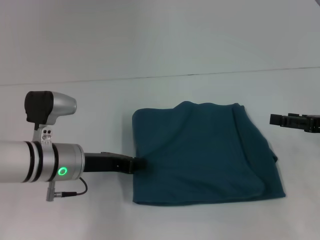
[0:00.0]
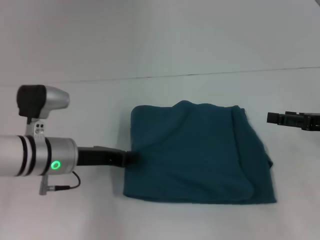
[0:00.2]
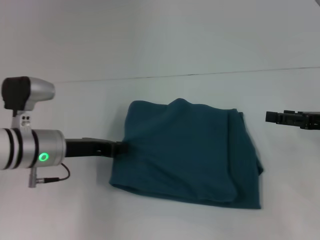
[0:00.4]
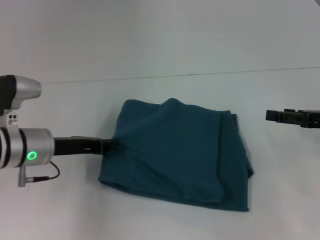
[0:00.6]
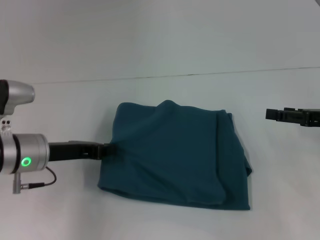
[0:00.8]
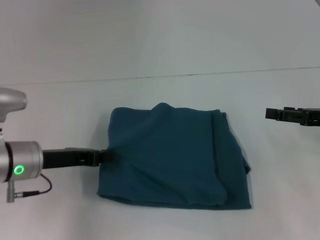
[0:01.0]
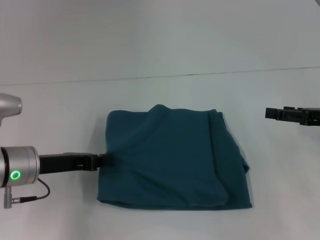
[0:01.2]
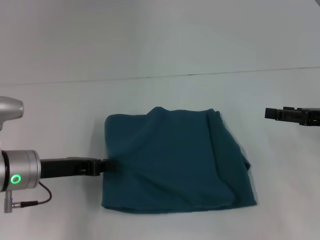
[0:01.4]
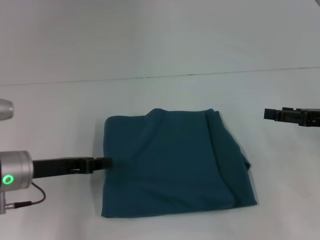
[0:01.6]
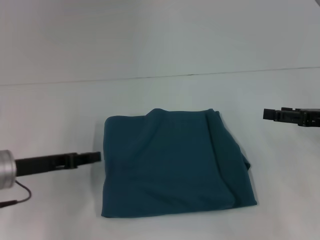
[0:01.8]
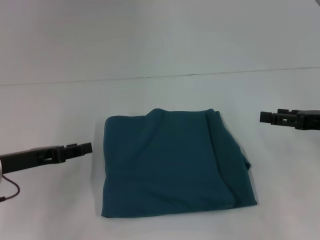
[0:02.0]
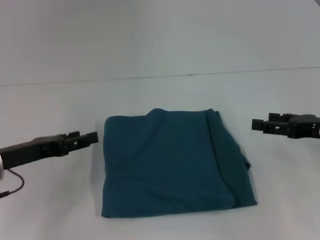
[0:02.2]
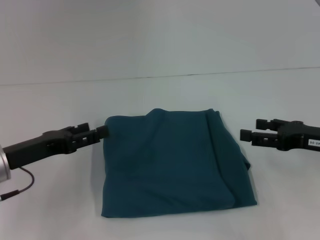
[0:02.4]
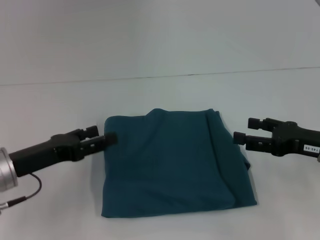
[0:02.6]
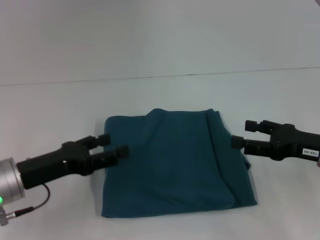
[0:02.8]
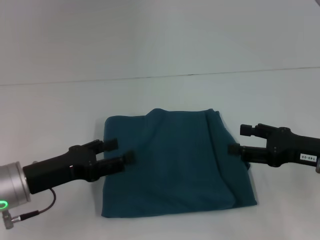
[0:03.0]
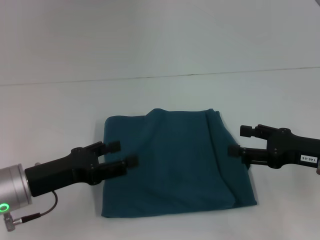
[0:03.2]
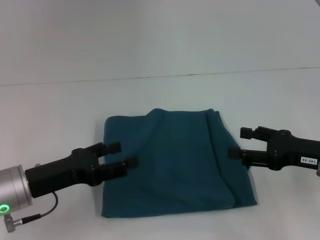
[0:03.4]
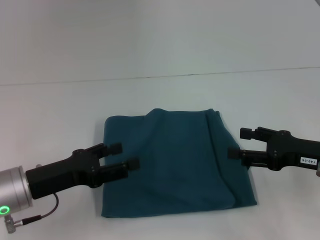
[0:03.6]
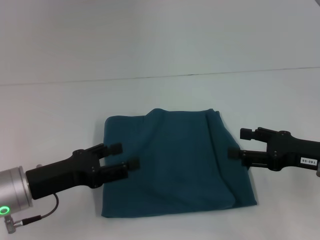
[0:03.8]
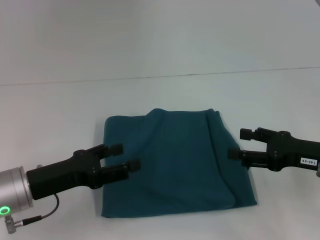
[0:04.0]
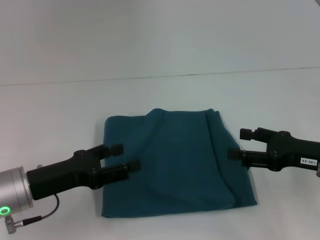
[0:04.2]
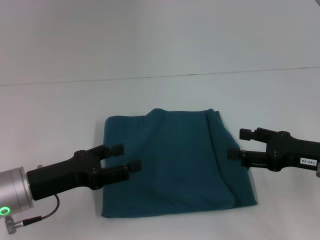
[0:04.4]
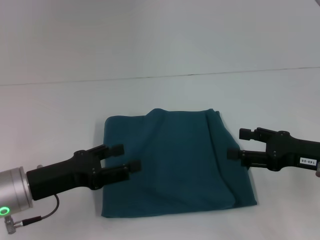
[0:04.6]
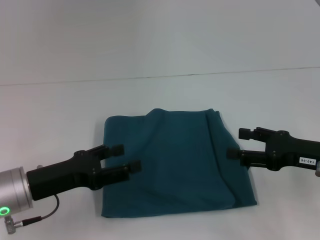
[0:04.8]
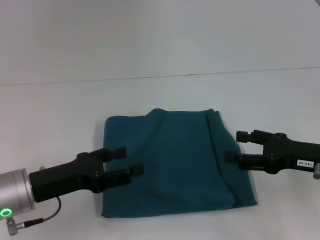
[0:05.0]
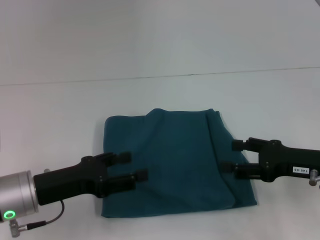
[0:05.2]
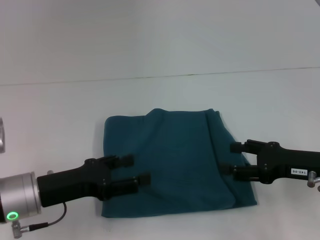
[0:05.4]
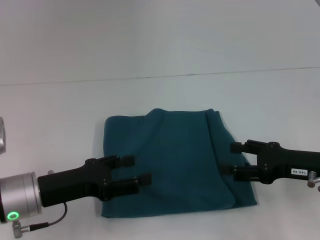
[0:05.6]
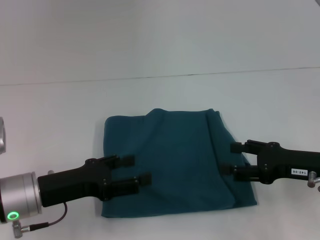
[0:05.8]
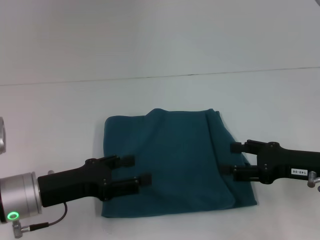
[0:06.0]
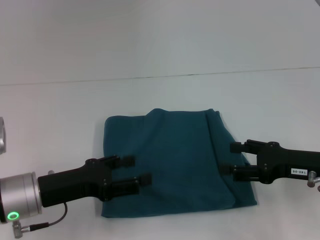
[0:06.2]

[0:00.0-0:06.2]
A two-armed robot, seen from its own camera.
0:00.0 to 0:01.6: The left gripper shifts approximately 5 cm to the left.
0:01.6 to 0:03.2: The left gripper opens; the right gripper goes some 5 cm to the left.
0:03.2 to 0:04.6: Neither gripper changes place.
0:04.6 to 0:06.2: Both grippers stay about where they are.

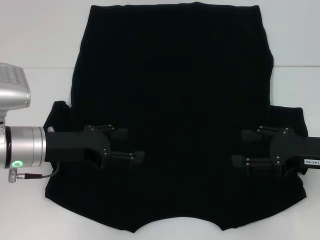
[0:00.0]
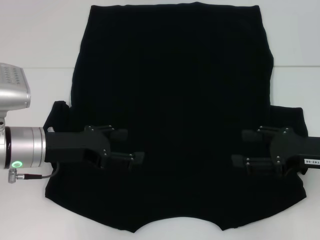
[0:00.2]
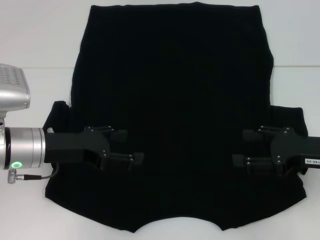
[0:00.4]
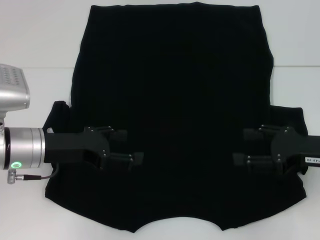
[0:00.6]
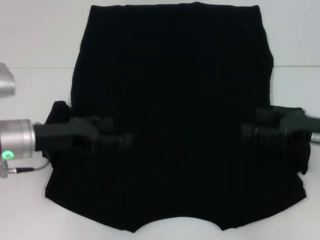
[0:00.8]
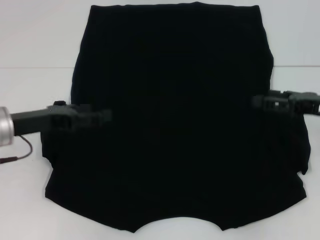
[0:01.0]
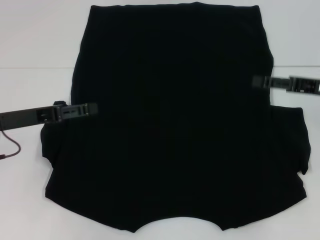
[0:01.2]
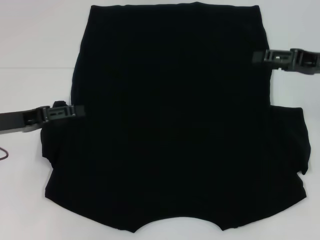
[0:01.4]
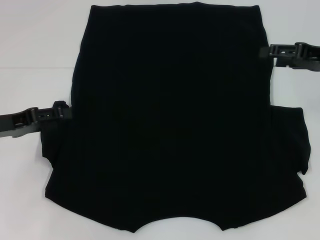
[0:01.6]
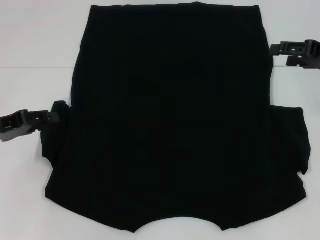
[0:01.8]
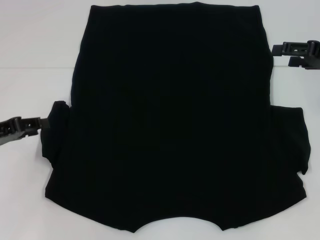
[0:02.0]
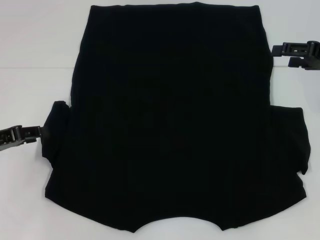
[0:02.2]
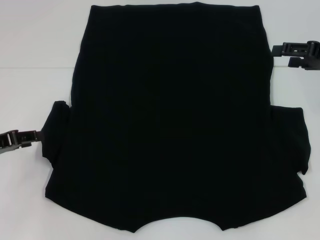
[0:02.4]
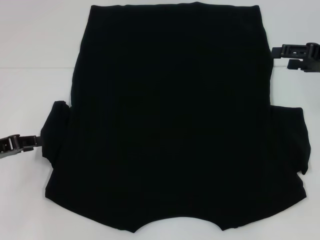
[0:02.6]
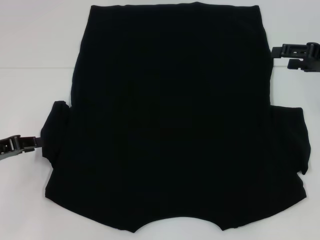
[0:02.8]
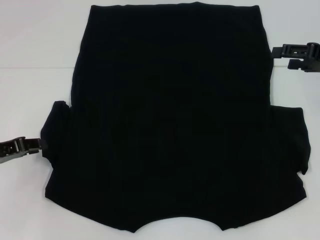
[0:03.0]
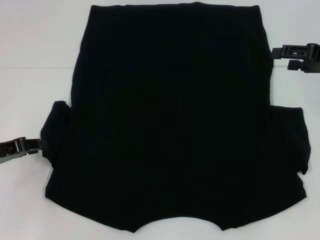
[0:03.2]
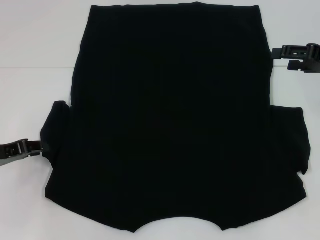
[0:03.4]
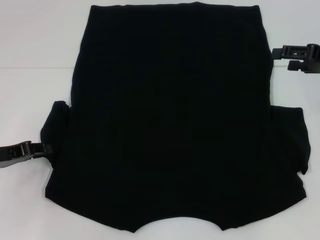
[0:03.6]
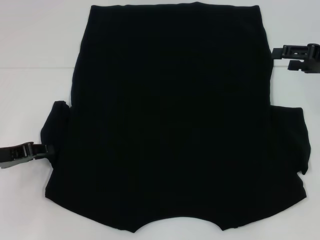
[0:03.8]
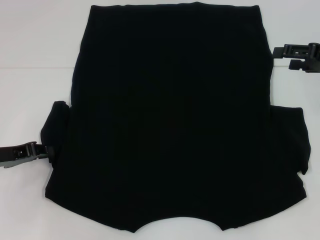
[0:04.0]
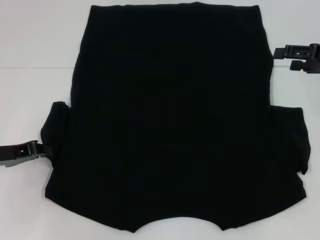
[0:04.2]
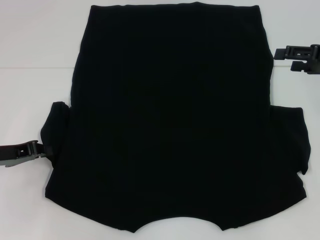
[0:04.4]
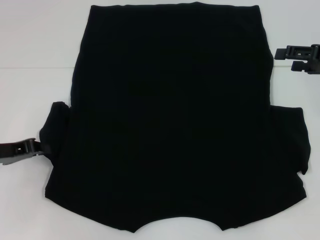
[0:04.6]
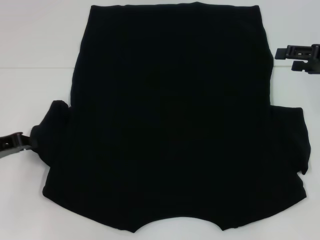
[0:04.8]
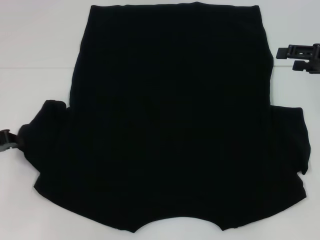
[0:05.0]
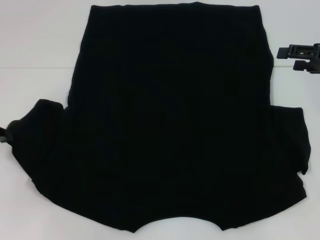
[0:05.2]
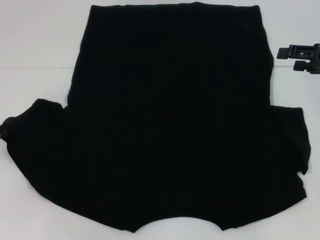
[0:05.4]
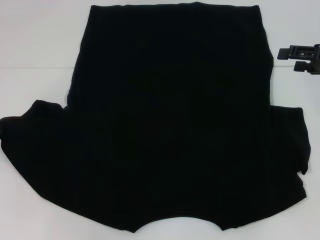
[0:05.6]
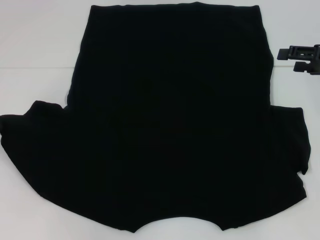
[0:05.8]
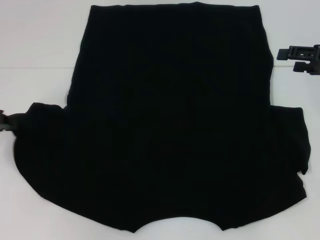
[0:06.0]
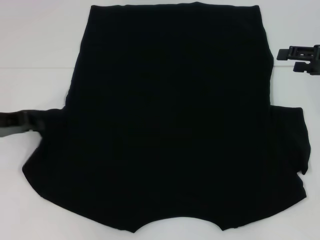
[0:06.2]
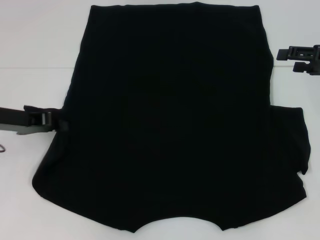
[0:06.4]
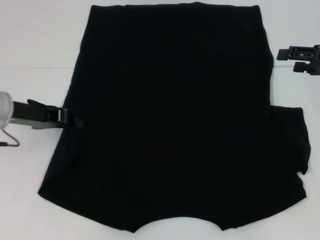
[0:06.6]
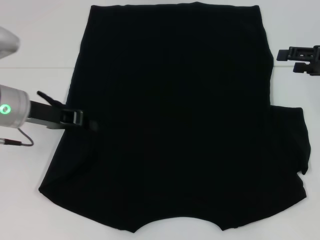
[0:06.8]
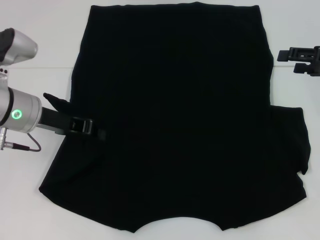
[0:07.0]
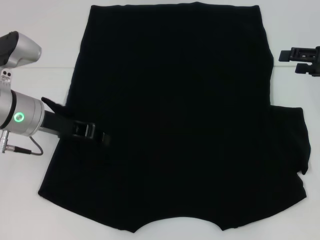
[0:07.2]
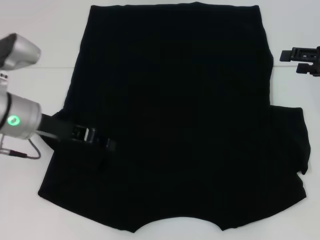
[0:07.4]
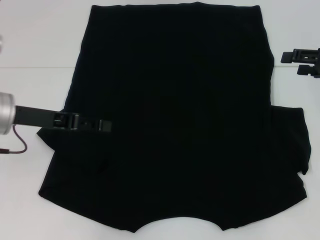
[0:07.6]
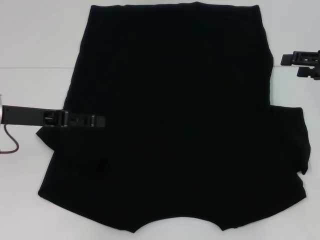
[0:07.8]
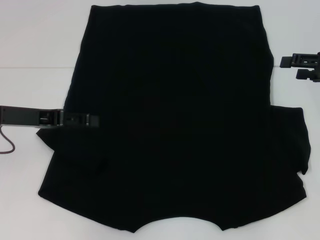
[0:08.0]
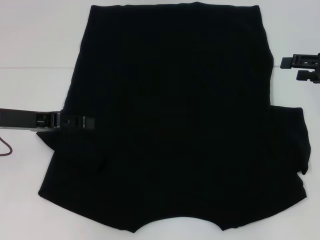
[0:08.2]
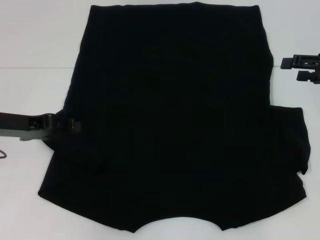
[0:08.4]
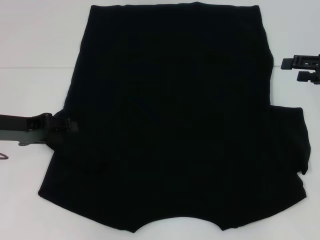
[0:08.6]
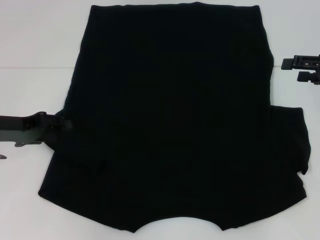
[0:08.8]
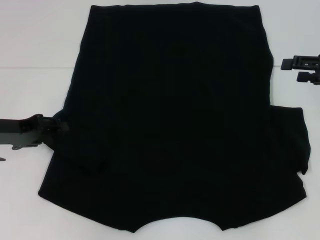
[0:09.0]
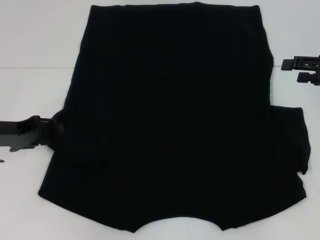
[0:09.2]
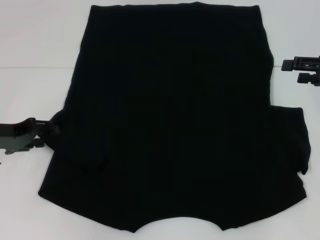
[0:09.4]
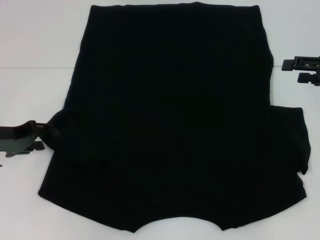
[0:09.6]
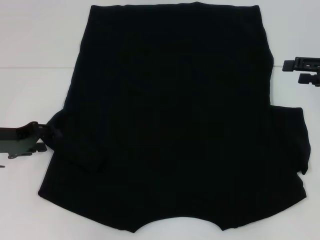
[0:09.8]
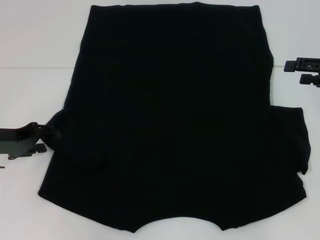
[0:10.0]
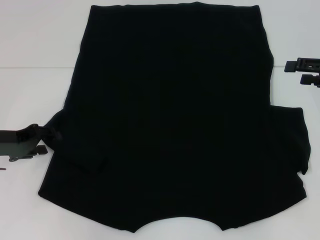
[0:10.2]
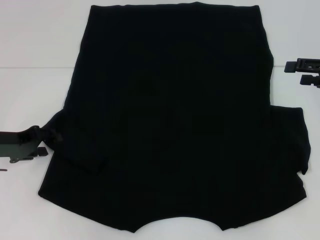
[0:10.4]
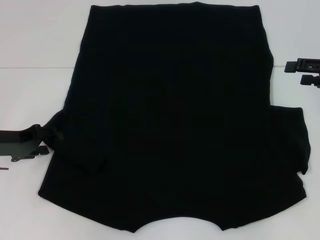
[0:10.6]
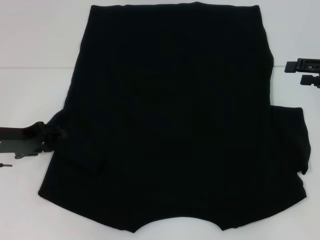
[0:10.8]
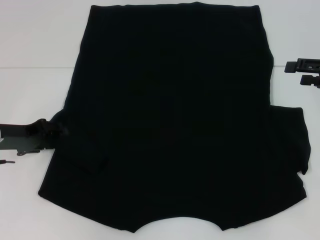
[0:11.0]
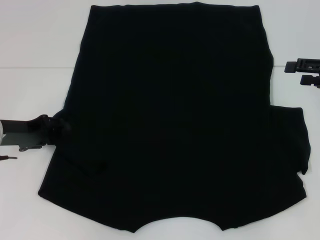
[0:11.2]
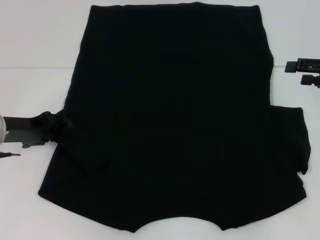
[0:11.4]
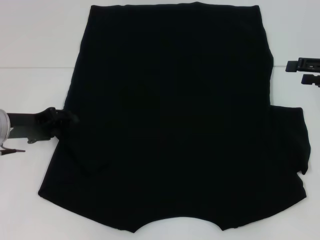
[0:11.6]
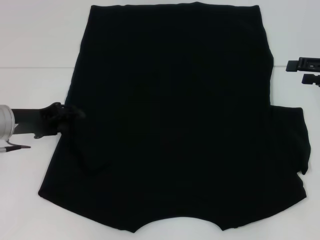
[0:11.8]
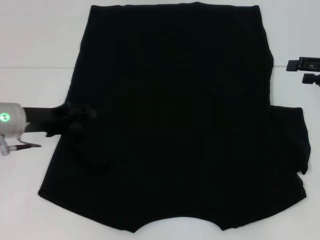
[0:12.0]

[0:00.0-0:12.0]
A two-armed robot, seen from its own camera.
0:00.0 to 0:01.6: The right gripper is displaced forward and upward by roughly 15 cm, while the left gripper heads to the left, covering roughly 10 cm.
0:01.6 to 0:03.0: The left gripper closes its fingers.
0:03.0 to 0:04.4: The grippers move only a little.
0:04.4 to 0:06.0: The left gripper heads upward, covering approximately 5 cm.
0:06.0 to 0:07.6: The left gripper moves to the right, roughly 10 cm.
0:07.6 to 0:09.0: The left gripper changes place by roughly 5 cm, and opens up.
0:09.0 to 0:10.4: There are only small adjustments of the grippers.
0:10.4 to 0:12.0: The left gripper ends up some 5 cm from where it was.

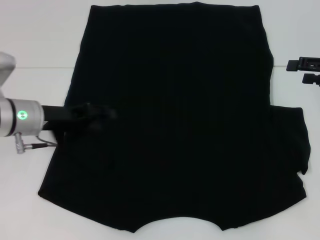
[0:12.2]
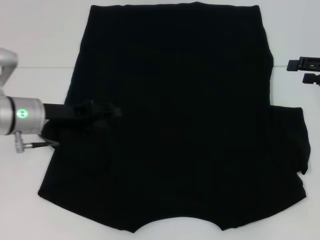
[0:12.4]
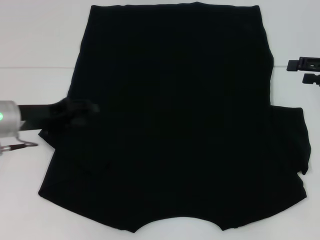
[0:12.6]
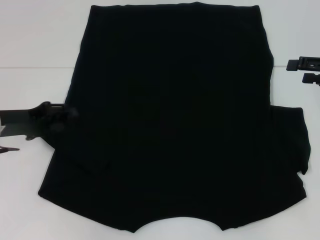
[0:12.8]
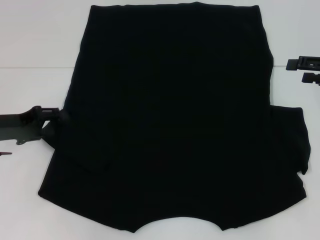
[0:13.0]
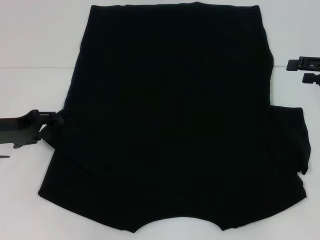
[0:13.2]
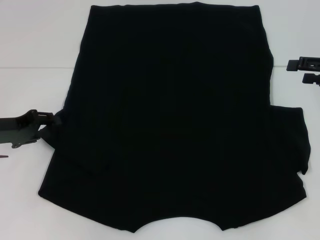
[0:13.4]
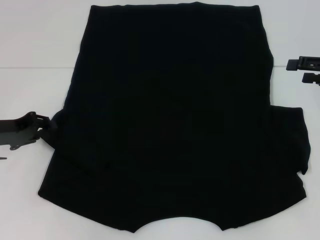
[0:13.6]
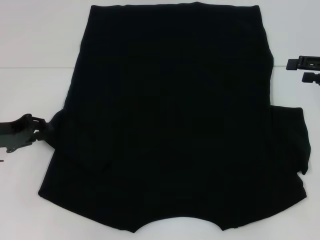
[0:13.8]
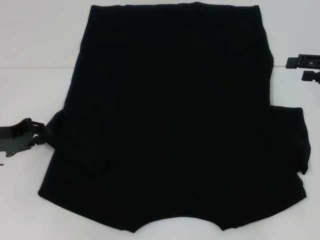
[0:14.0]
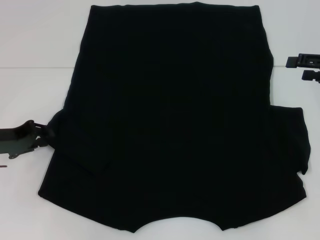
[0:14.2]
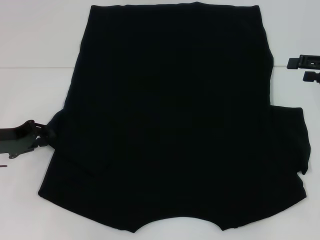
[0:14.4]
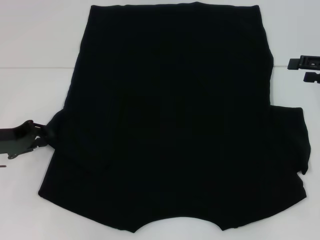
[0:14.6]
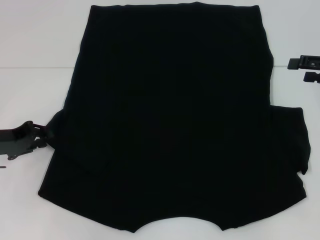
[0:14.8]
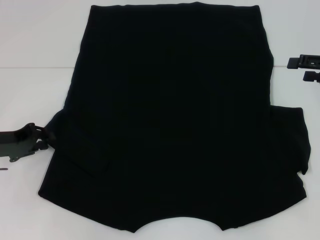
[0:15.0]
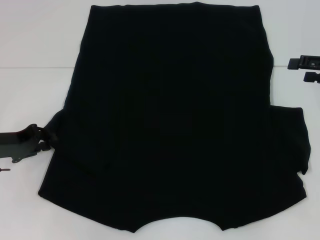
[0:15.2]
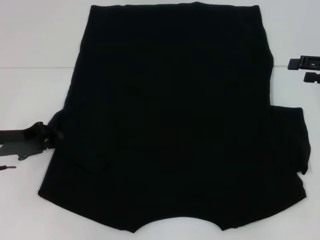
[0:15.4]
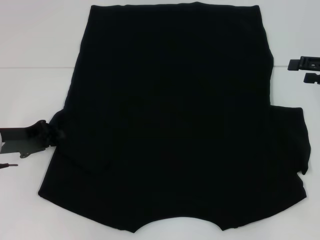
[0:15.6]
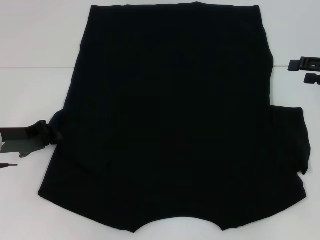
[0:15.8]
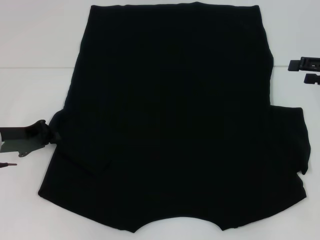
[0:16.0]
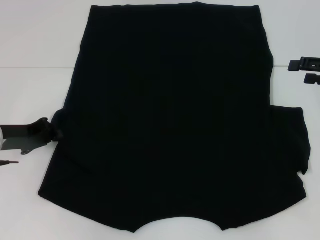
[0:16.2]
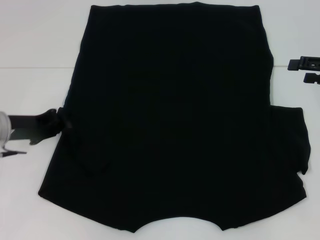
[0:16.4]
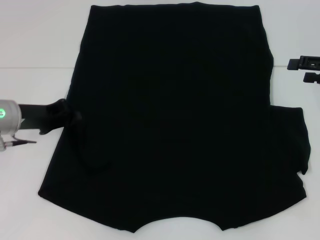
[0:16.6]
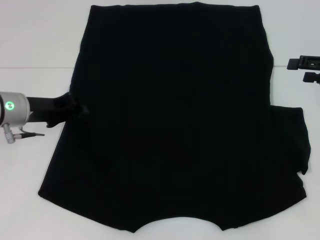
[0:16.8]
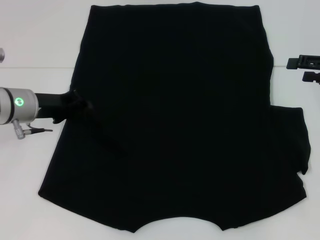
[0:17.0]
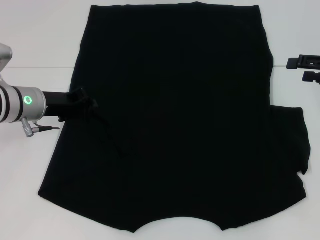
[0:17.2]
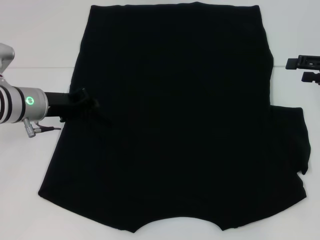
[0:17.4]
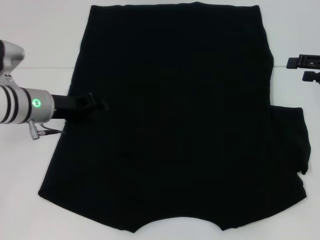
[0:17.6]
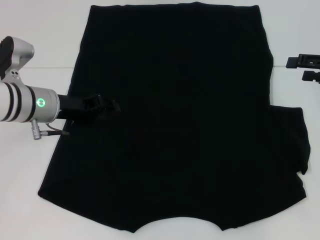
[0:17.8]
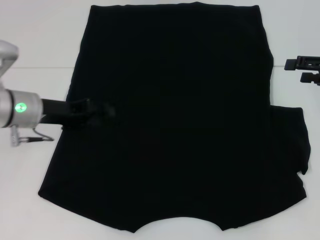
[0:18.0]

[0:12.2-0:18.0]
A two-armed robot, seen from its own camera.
0:12.2 to 0:13.6: The left gripper travels to the left by approximately 10 cm.
0:13.6 to 0:15.0: The grippers make only small movements.
0:15.0 to 0:16.6: The left gripper shifts by approximately 5 cm.
0:16.6 to 0:18.0: The left gripper opens its fingers.
